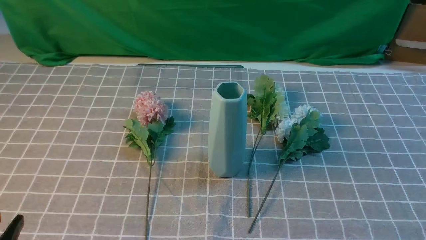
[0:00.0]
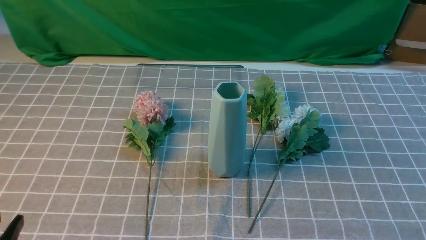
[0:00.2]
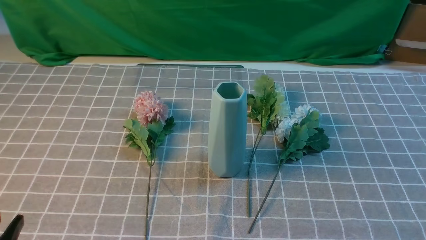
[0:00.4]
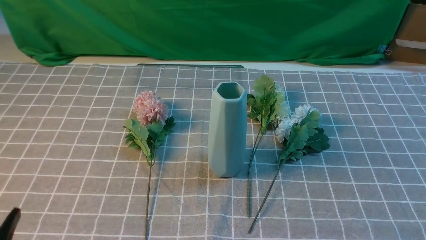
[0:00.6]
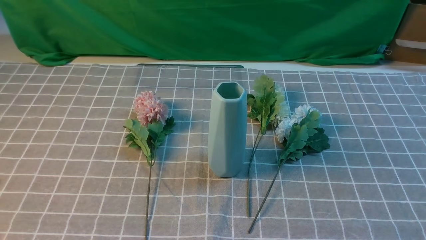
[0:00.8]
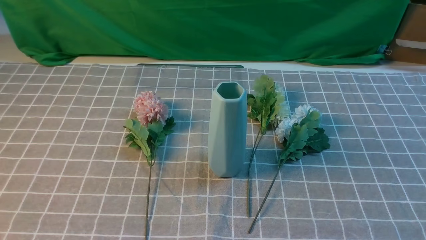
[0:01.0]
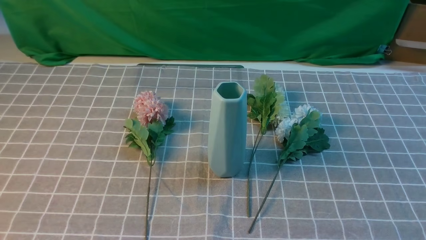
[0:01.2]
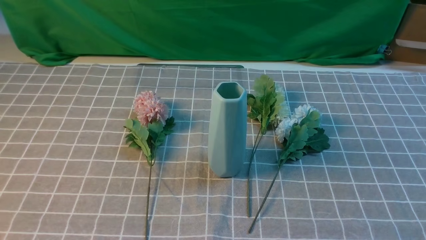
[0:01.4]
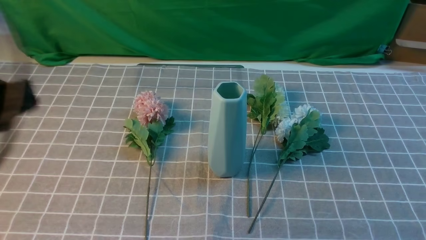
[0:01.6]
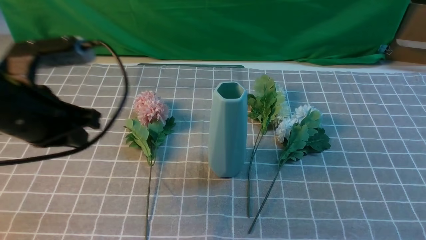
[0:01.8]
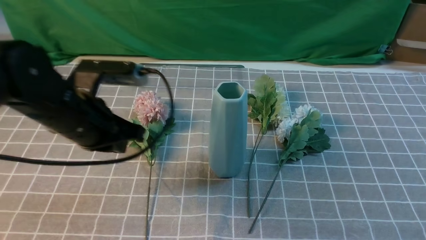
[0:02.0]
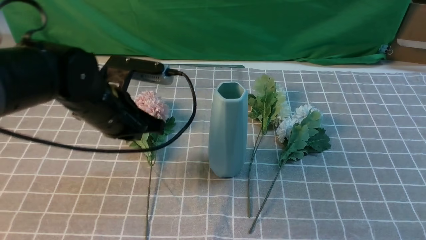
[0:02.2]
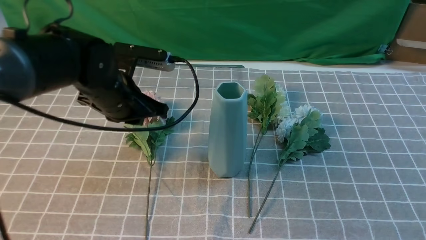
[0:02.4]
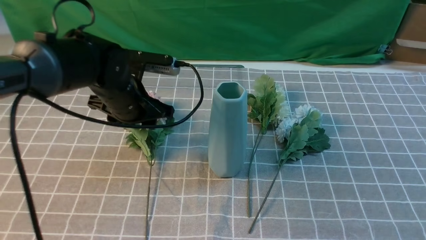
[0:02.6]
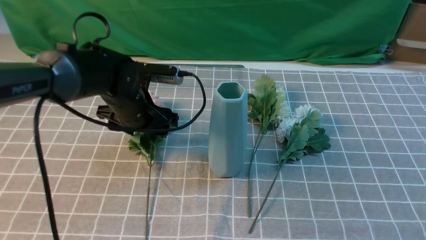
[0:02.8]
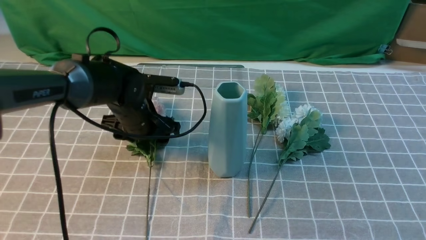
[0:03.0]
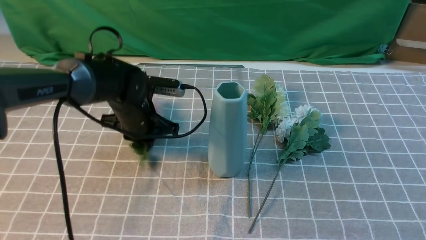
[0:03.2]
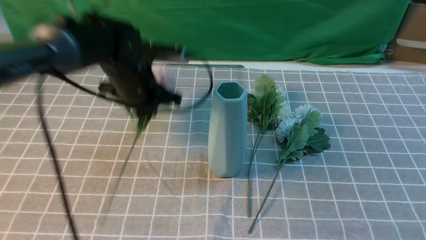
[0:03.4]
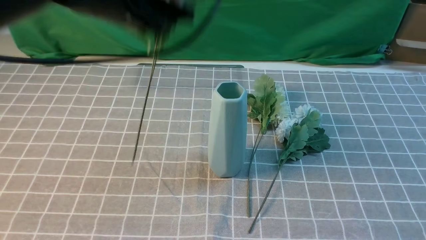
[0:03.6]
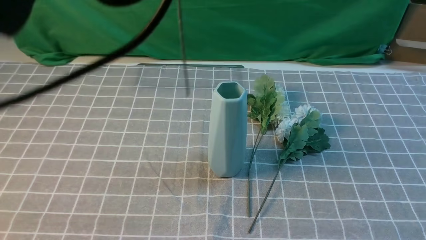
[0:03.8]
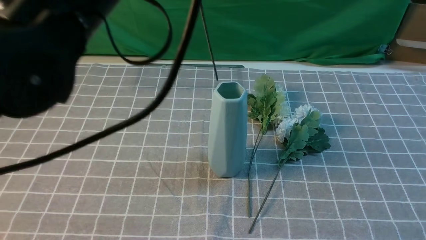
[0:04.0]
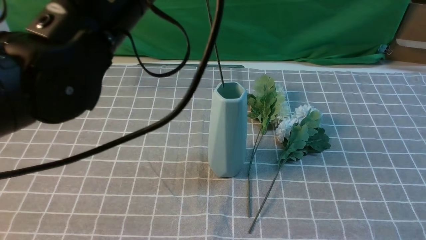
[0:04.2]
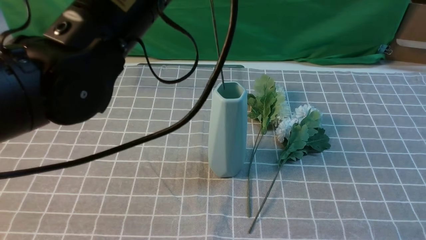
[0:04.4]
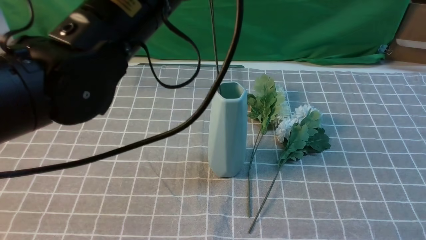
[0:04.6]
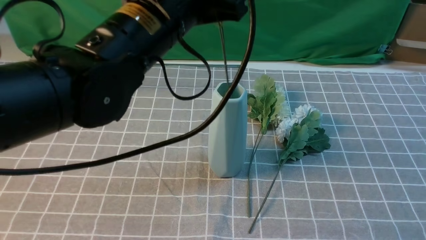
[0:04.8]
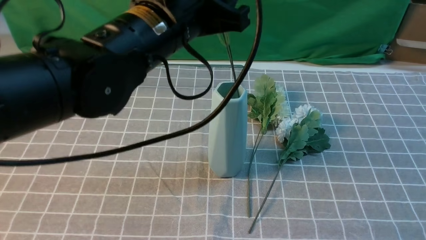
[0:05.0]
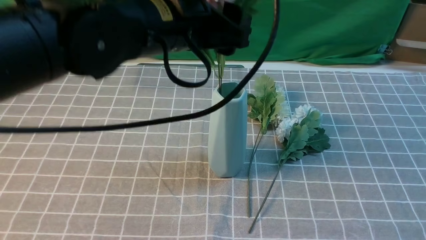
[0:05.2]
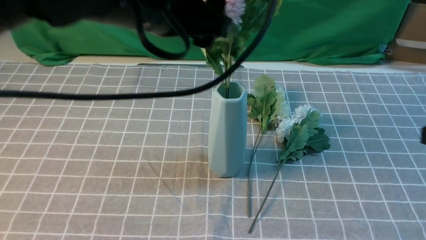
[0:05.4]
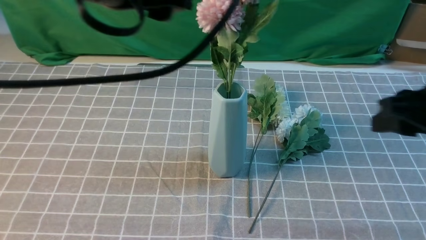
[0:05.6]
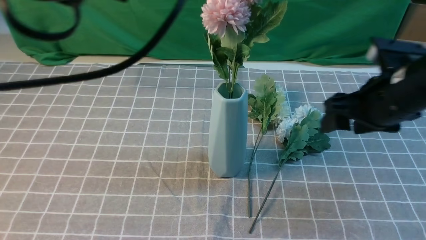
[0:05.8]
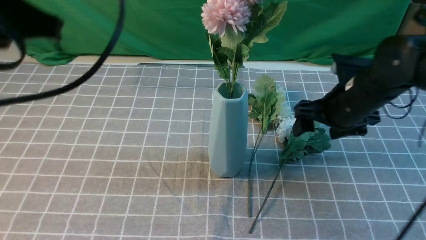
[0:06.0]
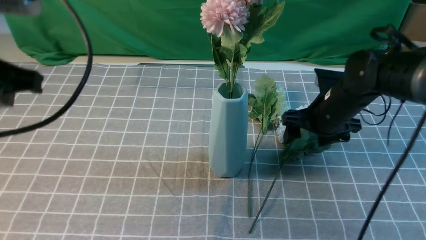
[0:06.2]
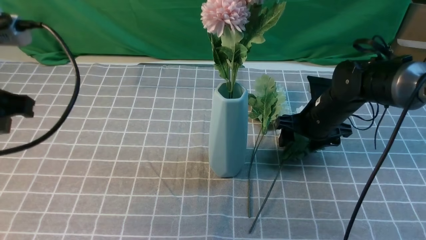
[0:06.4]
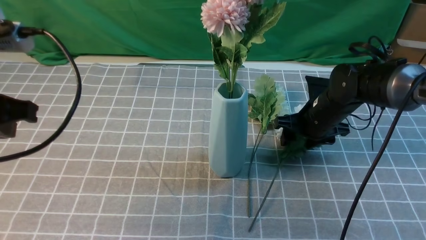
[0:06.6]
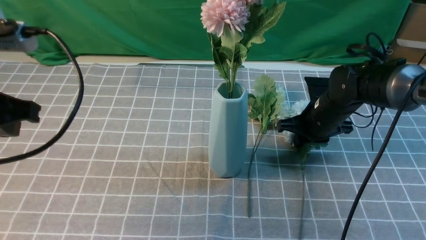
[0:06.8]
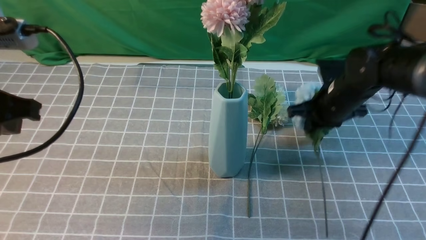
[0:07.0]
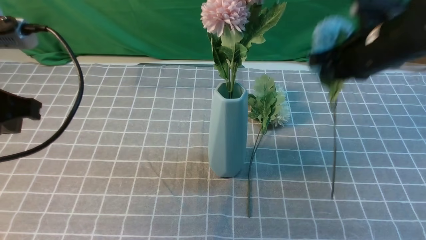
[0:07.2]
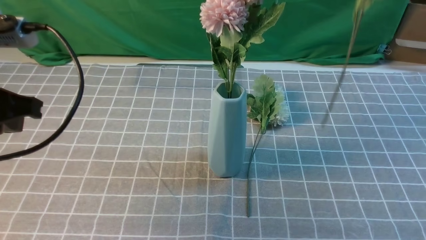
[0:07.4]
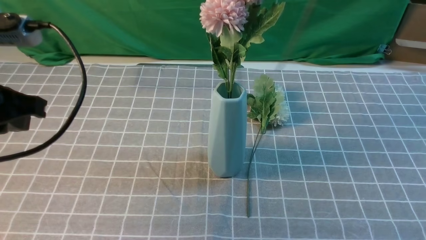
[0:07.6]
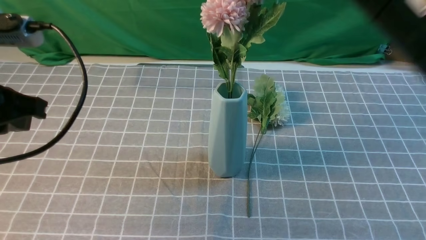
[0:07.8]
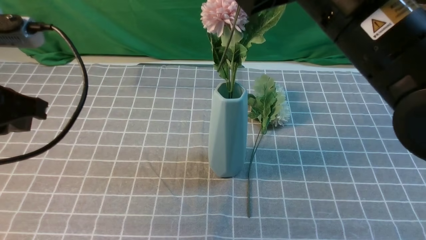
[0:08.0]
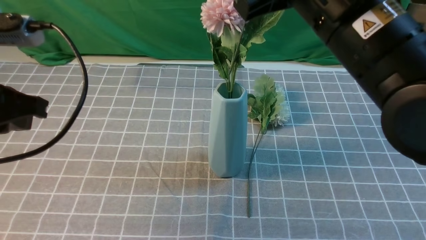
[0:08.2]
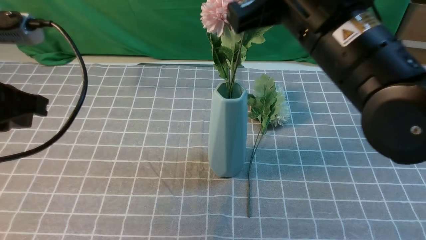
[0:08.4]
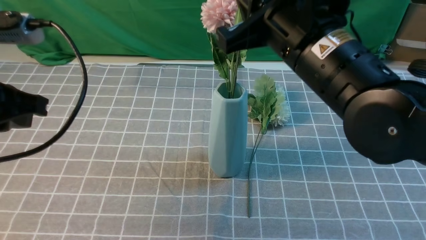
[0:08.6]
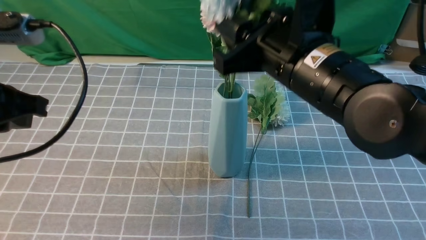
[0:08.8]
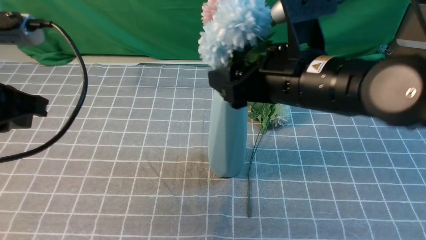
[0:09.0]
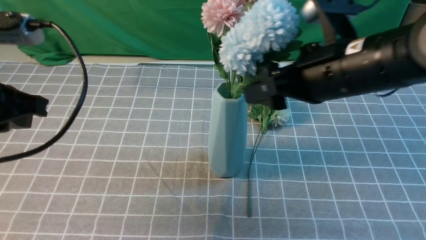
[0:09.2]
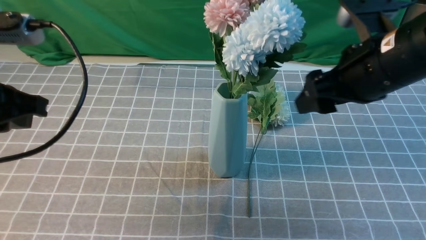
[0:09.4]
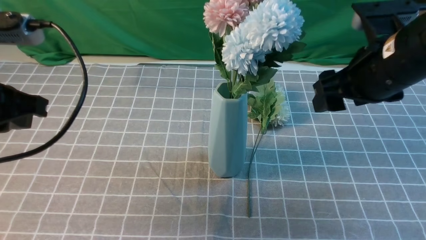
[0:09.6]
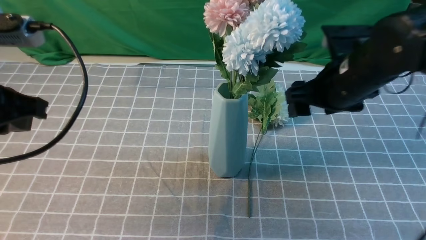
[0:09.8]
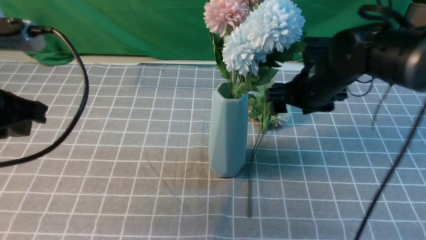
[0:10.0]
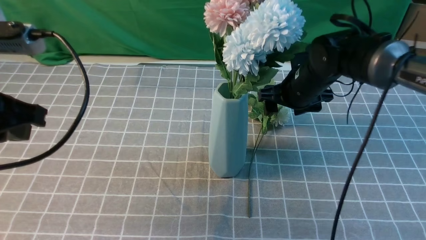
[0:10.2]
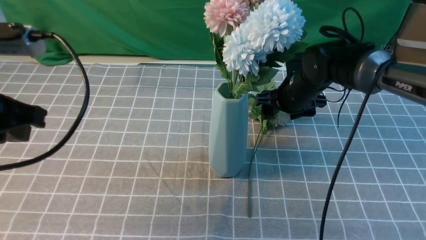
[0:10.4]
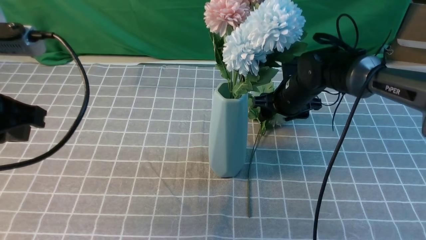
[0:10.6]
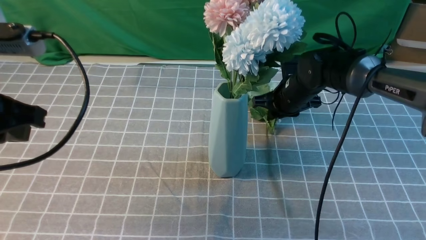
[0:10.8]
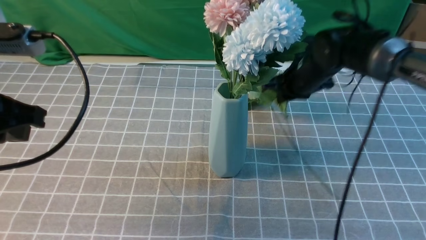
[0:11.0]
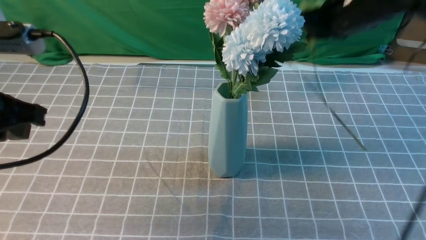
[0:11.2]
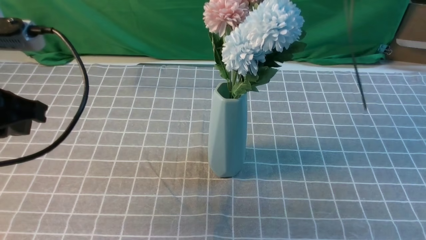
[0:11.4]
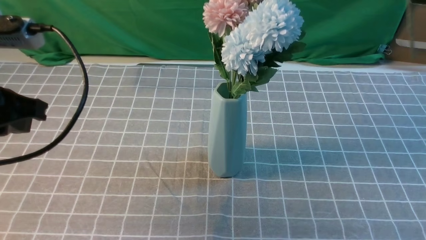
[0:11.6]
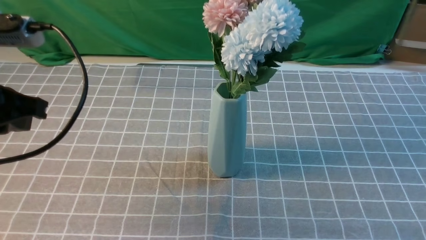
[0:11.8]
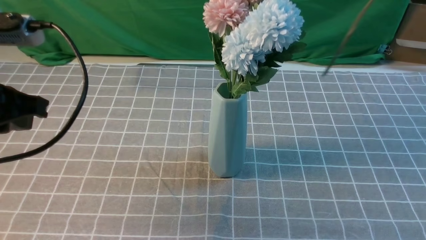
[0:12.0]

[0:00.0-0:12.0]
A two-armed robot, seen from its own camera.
Task of the whole recording: insert the flowers into the vase on the table with the grey tablecloth.
Step, 0:00.0 to 0:03.0: use the left arm to grab a bunch of fresh flowers.
Step, 0:03.4 to 0:05.4: use the left arm to insert the flowers into the vase.
Step, 0:05.6 to 0:06.6: use the right arm to grab a bunch of fresh flowers.
Step, 0:06.8 to 0:09.2: use the right arm to insert the flowers into the vase.
Step, 0:09.4 to 0:10.8: use the right arm to grab a bunch of fresh flowers.
0:00.0 to 0:01.6: The left gripper heads upward and forward, covering roughly 20 cm, and closes its fingers.
0:01.6 to 0:03.0: The left gripper goes about 30 cm forward, downward and to the right, and opens. Meanwhile the right gripper goes about 15 cm upward and forward.
0:03.0 to 0:04.4: The left gripper heads upward and backward, covering roughly 25 cm, and closes up.
0:04.4 to 0:06.0: The left gripper travels to the left by some 10 cm, and opens and closes again; the right gripper goes approximately 30 cm forward, downward and to the left, and opens.
0:06.0 to 0:07.6: The left gripper moves downward, approximately 5 cm; the right gripper travels upward and backward by roughly 25 cm, and closes.
0:07.6 to 0:09.0: The right gripper goes some 15 cm downward, and opens its fingers.
0:09.0 to 0:10.4: The right gripper travels forward and downward by some 25 cm.
0:10.4 to 0:12.0: The right gripper goes about 40 cm backward and upward, and closes.

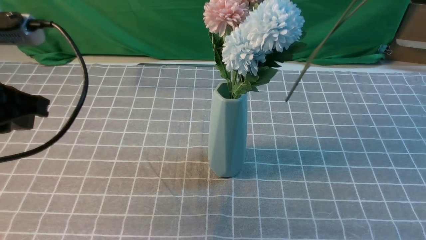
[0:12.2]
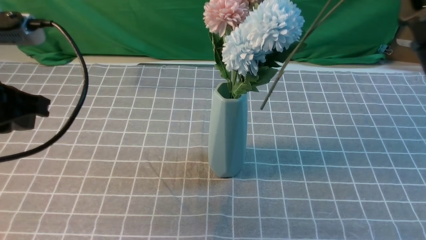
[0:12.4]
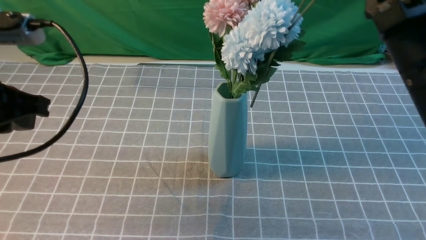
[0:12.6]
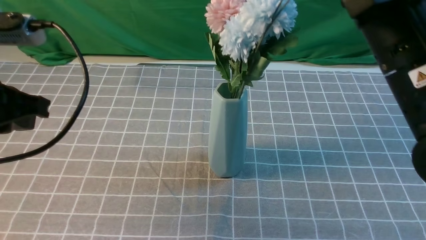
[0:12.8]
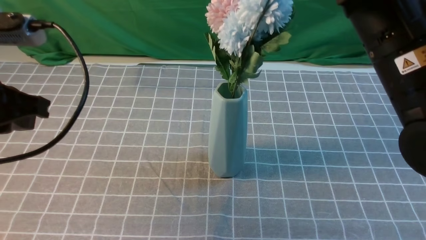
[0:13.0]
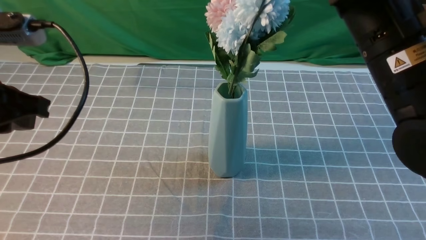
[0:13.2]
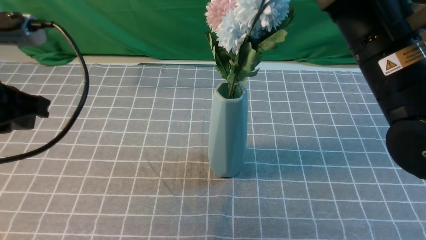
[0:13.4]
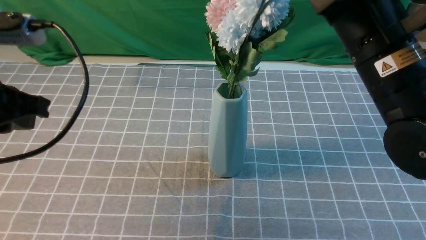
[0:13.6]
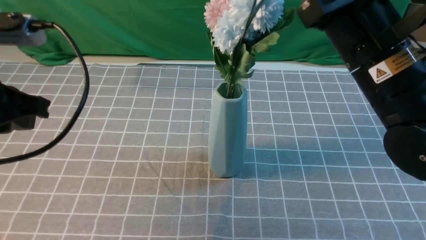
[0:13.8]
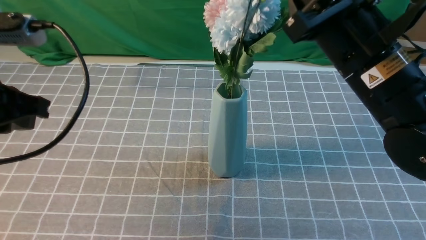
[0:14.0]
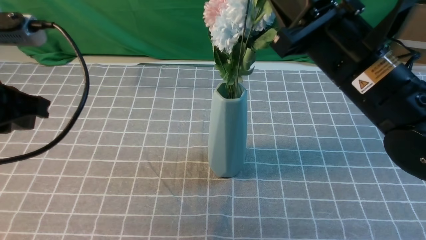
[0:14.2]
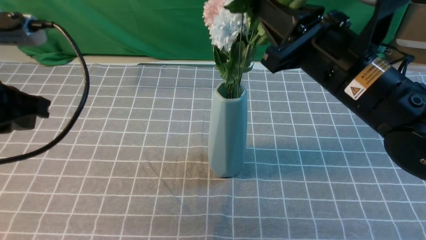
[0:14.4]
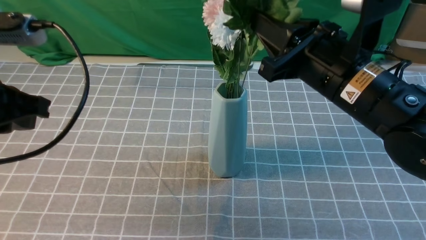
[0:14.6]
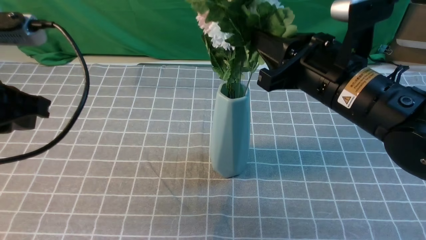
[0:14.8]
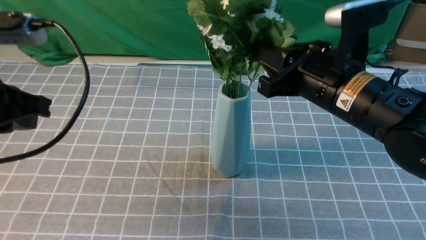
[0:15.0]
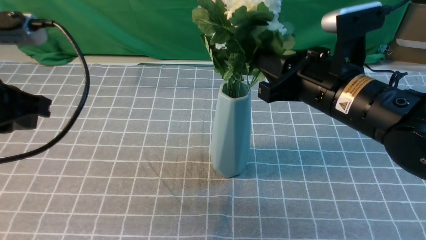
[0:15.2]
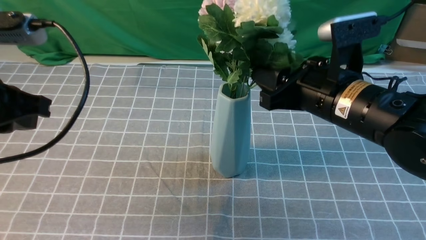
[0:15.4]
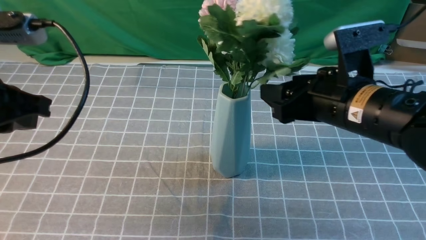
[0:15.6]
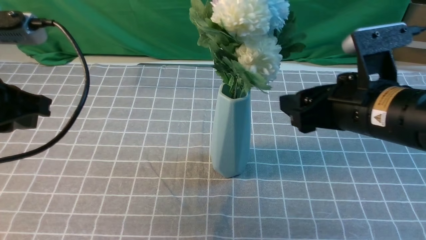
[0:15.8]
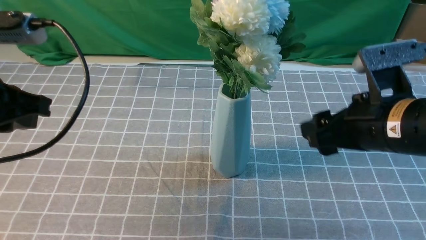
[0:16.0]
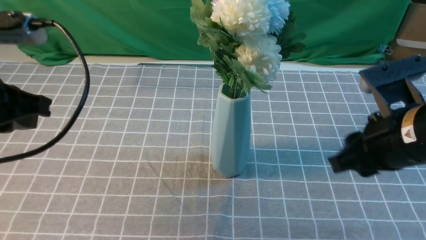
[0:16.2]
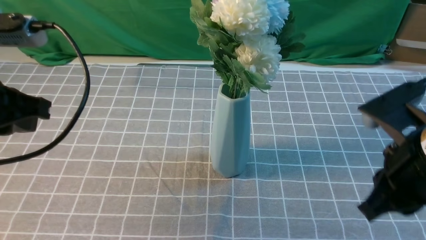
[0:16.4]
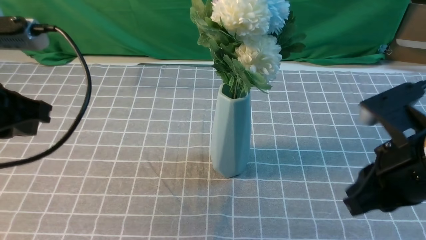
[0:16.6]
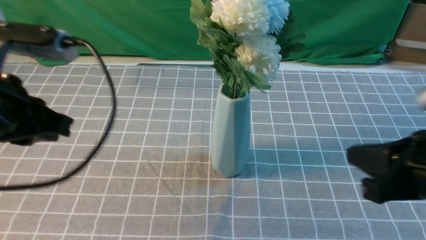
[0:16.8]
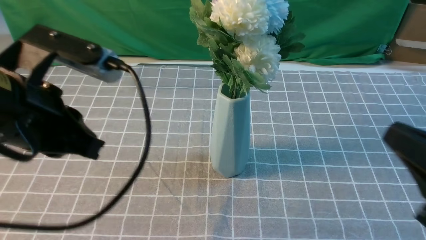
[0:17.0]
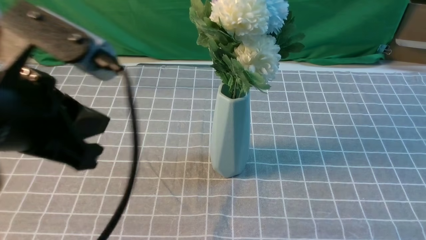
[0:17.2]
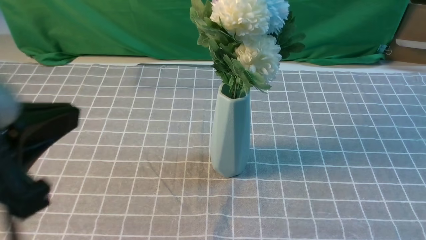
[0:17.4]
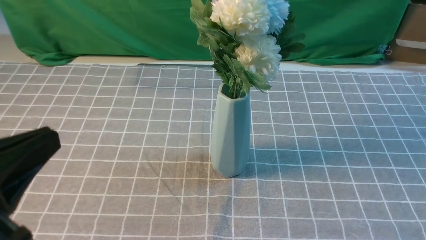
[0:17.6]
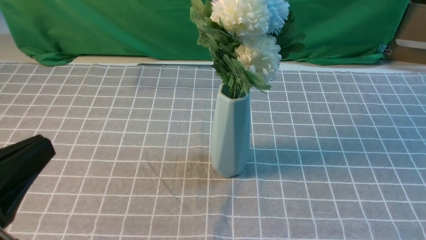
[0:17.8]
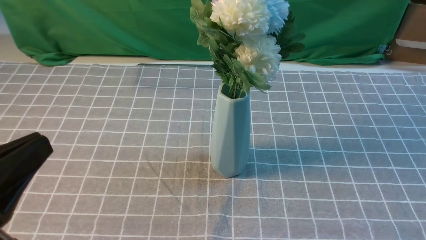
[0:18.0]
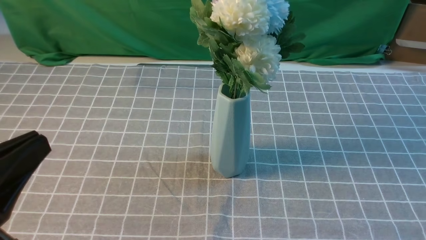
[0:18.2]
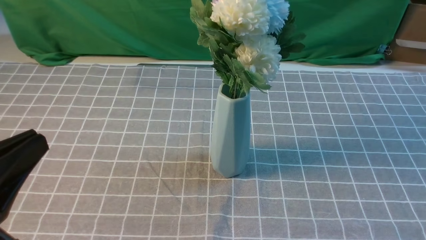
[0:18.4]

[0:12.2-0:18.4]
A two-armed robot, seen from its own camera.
Task of the whole recording: insert the flowers into the vase on the table with the grey tablecloth.
Step, 0:12.2 to 0:15.4: use the right arm to insert the flowers into the vase.
0:12.2 to 0:13.8: The right gripper moves forward and to the left, roughly 10 cm.
0:13.8 to 0:15.4: The right gripper heads downward, covering some 5 cm, and opens its fingers.
0:15.4 to 0:16.8: The right gripper moves backward and to the right, approximately 15 cm, and closes its fingers.
0:16.8 to 0:18.4: The right gripper travels backward and to the right by some 10 cm. The left gripper is displaced backward by some 15 cm.
